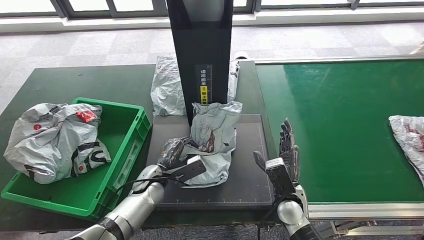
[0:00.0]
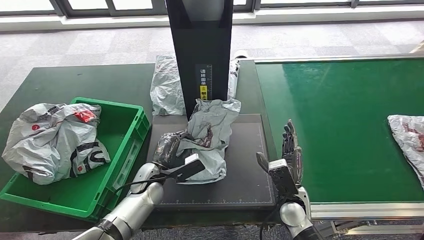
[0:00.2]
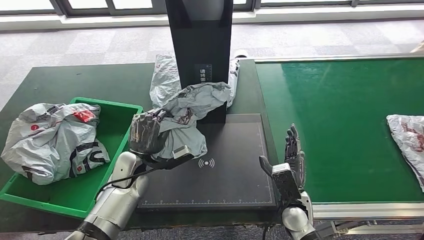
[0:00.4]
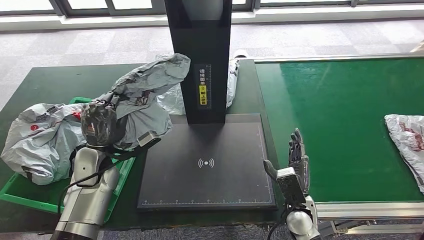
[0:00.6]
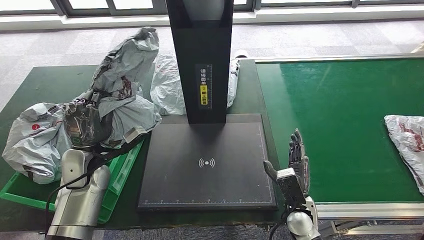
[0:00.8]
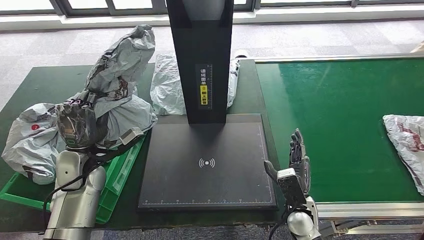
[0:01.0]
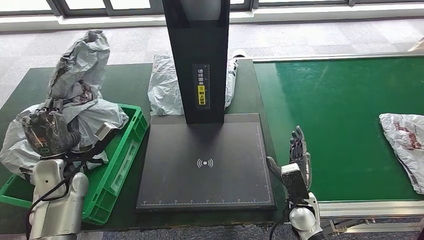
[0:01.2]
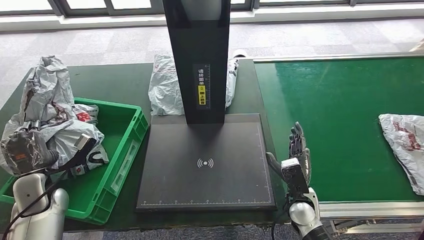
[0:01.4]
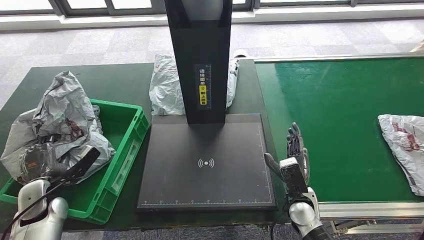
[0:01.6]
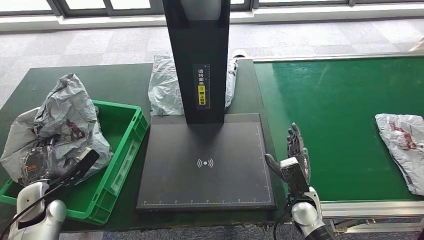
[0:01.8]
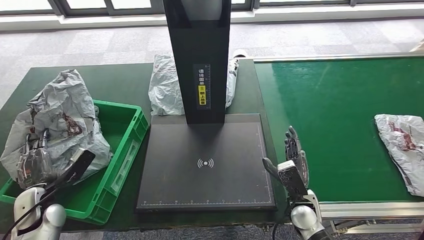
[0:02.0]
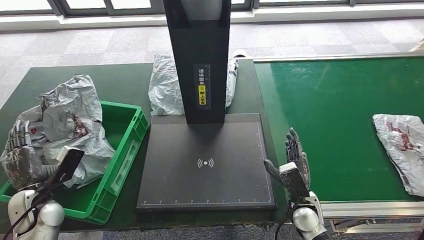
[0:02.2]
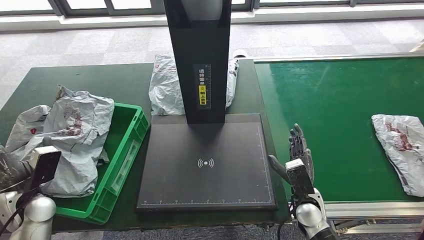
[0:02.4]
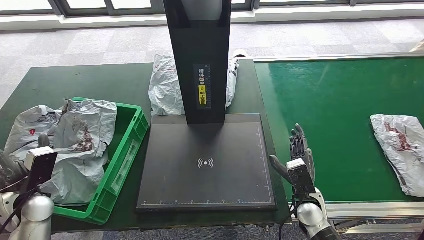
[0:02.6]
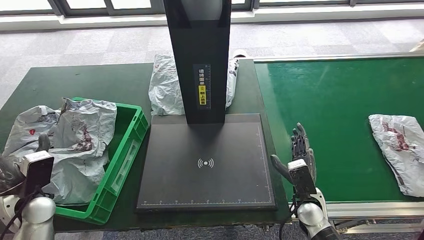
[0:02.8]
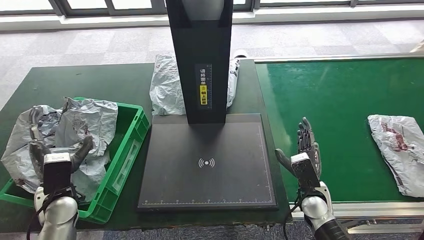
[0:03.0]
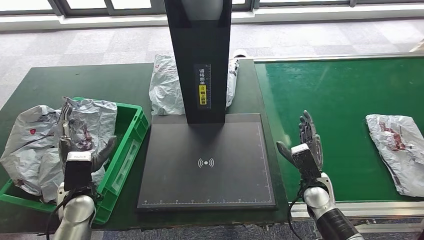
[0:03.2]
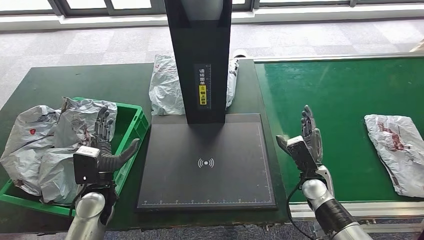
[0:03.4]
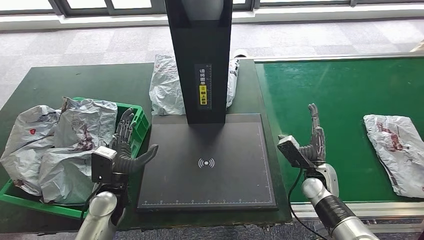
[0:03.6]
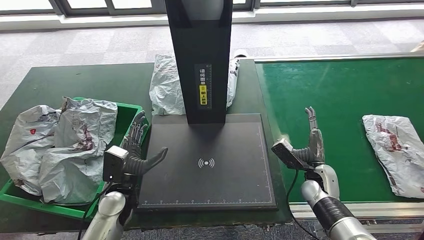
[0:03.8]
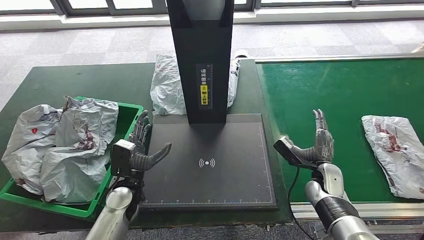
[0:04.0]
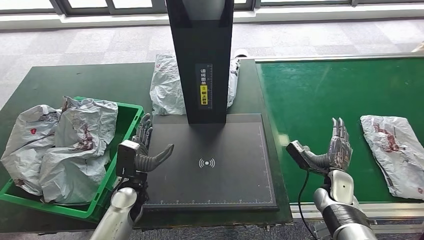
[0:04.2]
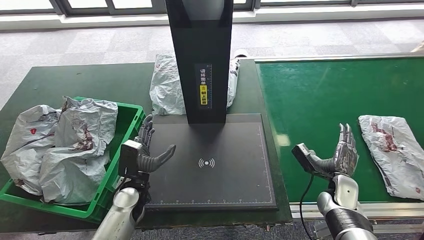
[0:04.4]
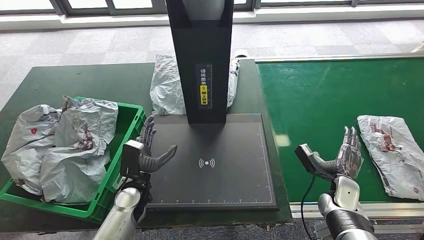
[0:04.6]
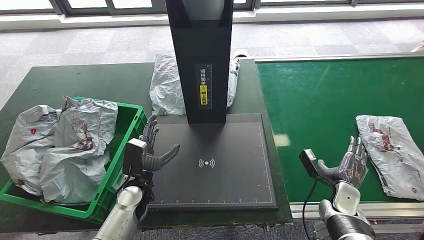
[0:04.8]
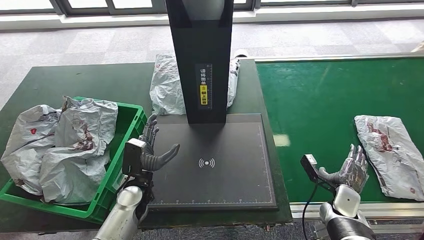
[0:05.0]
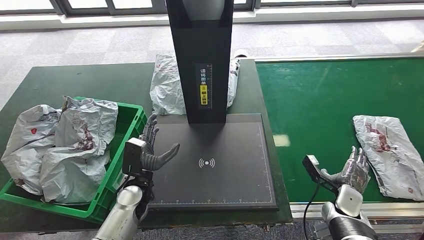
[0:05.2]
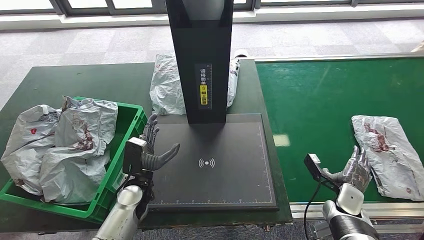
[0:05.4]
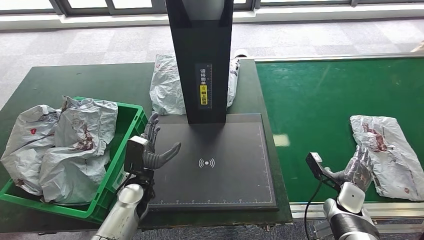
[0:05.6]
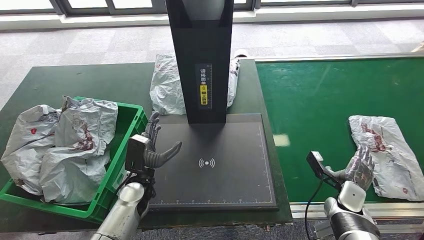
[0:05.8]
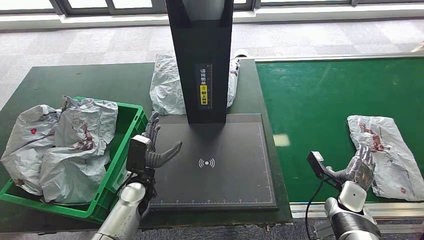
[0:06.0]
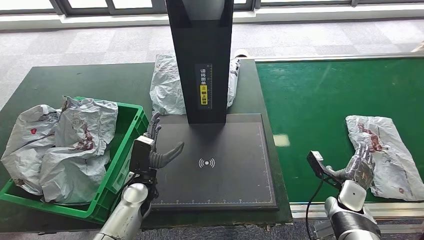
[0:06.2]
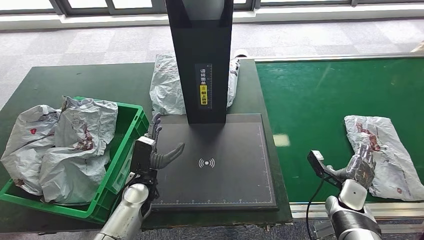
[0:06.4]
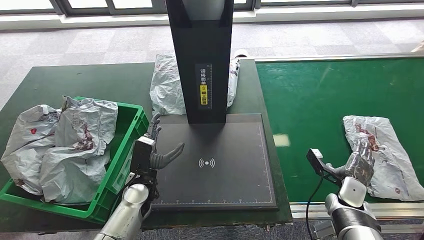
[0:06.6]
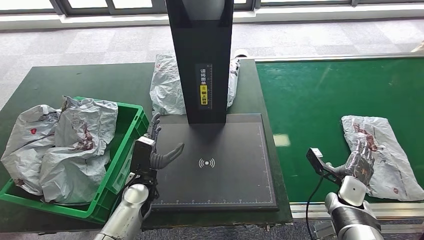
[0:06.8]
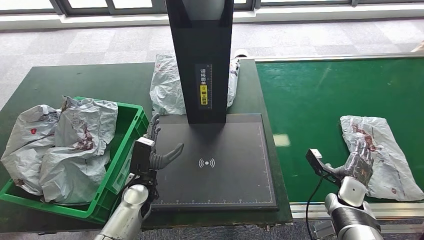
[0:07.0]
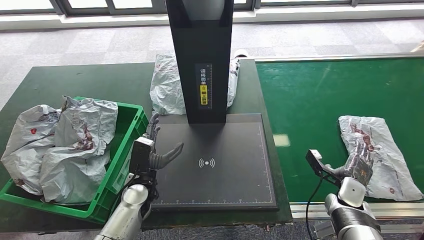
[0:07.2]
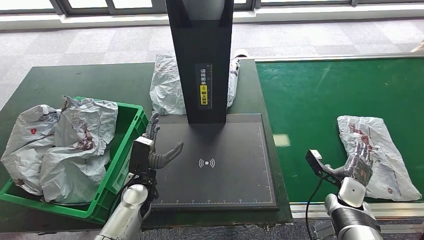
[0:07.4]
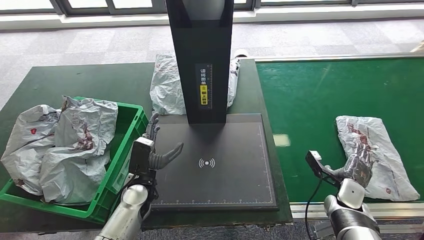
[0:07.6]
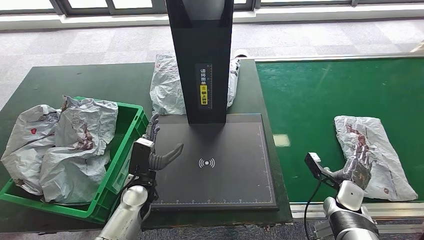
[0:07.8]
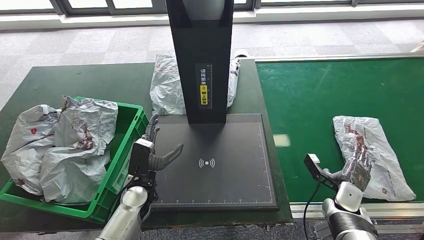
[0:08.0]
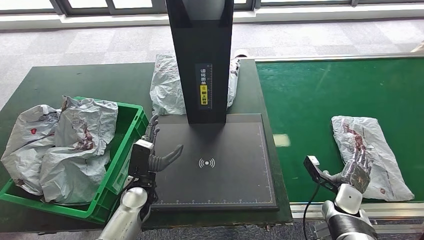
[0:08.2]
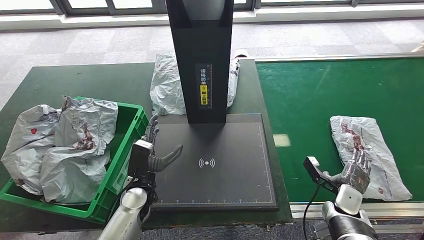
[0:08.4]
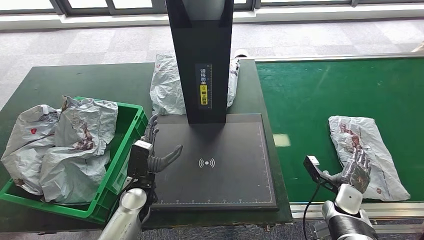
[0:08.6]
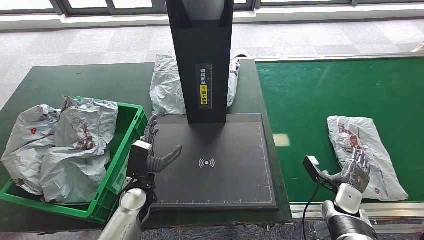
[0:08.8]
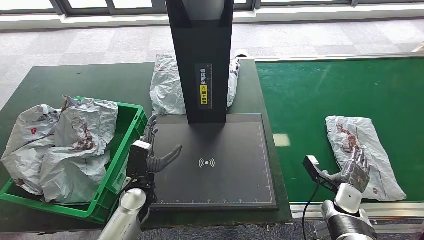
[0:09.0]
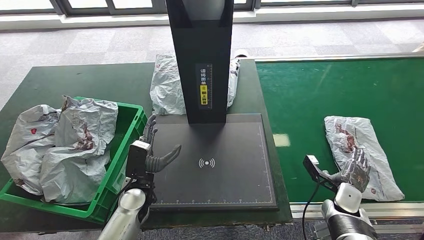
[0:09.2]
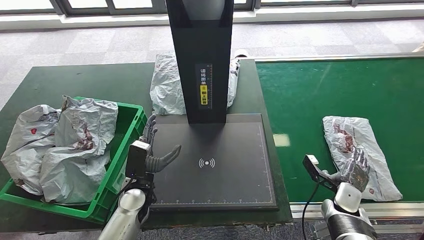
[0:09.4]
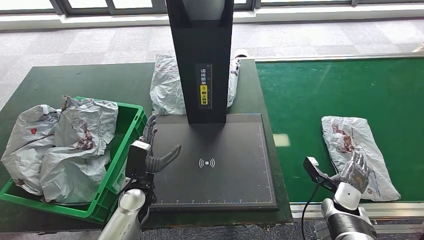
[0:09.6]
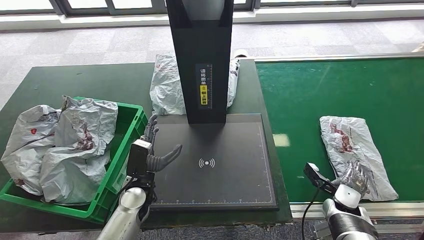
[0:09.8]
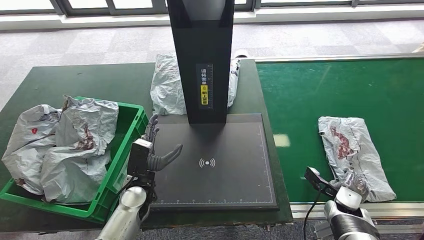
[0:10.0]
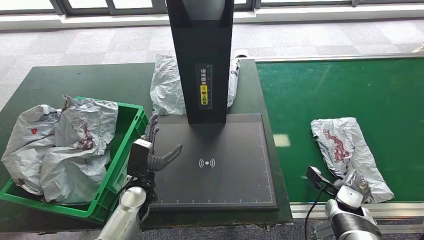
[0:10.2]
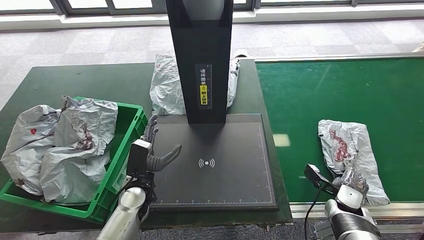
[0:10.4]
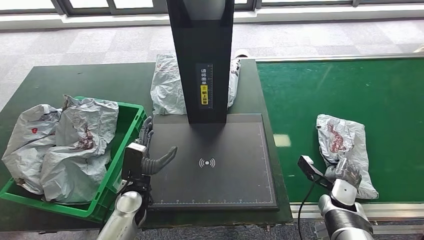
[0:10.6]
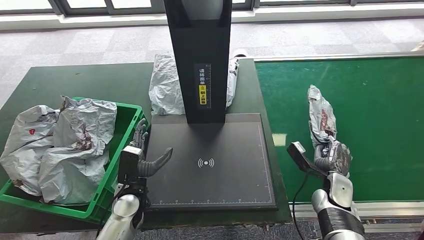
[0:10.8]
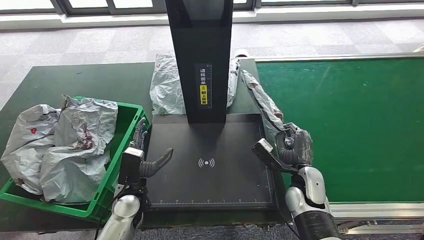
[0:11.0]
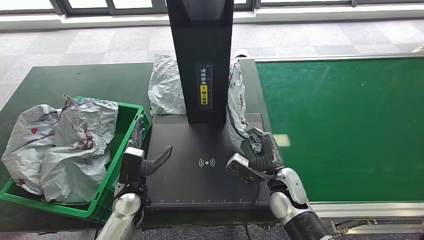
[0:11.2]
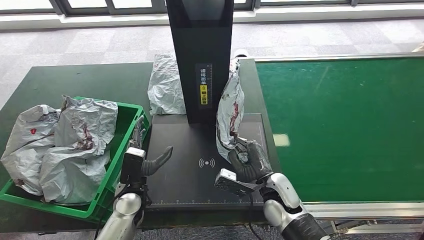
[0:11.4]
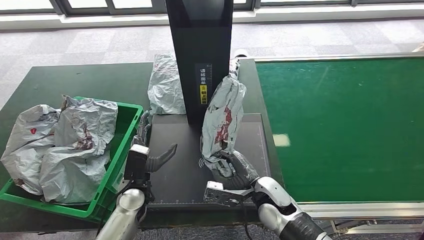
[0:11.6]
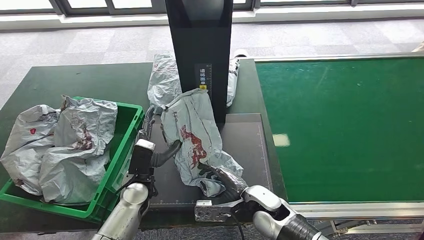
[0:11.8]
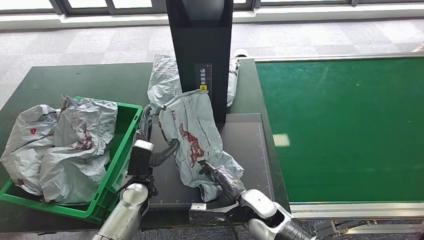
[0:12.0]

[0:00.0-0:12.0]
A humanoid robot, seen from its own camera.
Step, 0:00.8 to 0:03.4: Place the parcel into the delivery box.
Step, 0:03.8 to 0:10.8: Pick up the parcel from the conveyor belt.
0:01.6 to 0:03.0: The left hand goes about 5 cm to the right.
0:03.0 to 0:04.4: The right hand travels to the right by approximately 10 cm. Meanwhile the left hand heads to the right, covering roughly 15 cm.
0:06.0 to 0:07.6: Both hands stay put.
0:07.6 to 0:09.0: There are only small adjustments of the hands.
0:10.4 to 0:12.0: The right hand travels to the left by some 25 cm.

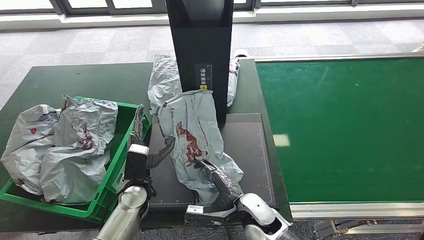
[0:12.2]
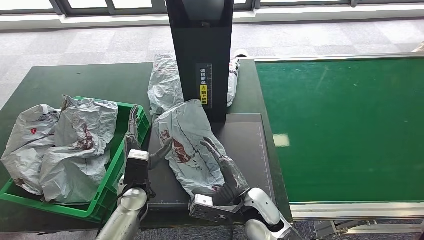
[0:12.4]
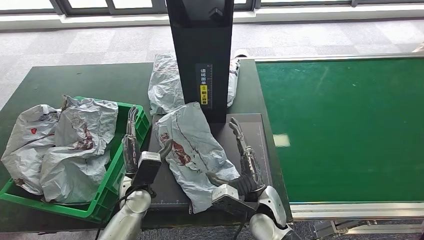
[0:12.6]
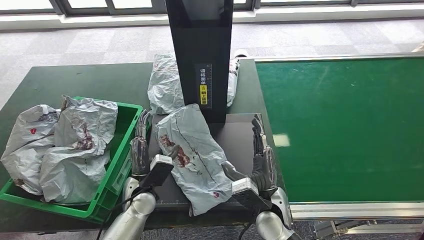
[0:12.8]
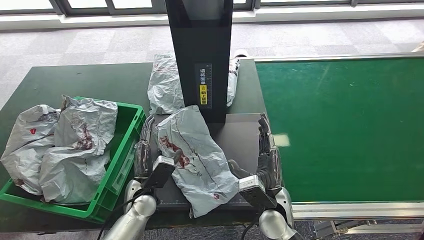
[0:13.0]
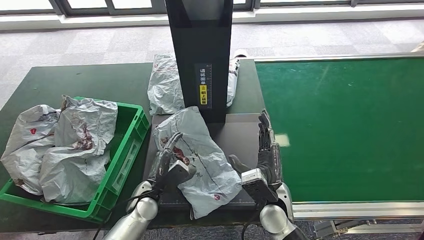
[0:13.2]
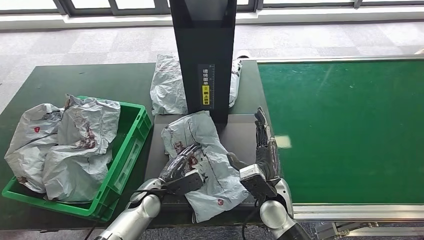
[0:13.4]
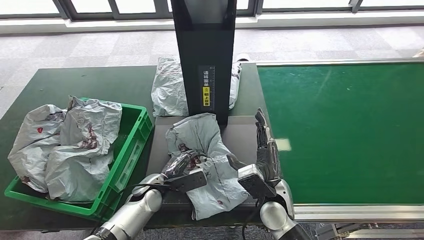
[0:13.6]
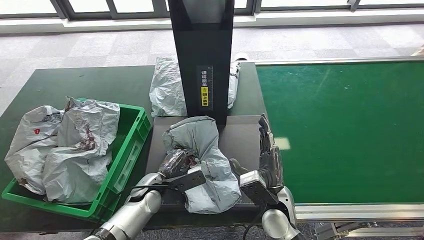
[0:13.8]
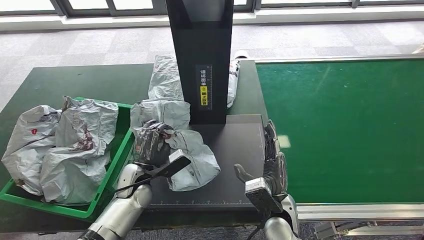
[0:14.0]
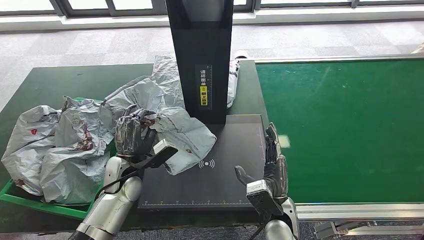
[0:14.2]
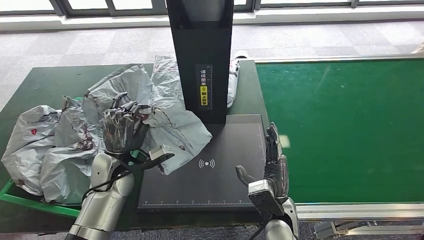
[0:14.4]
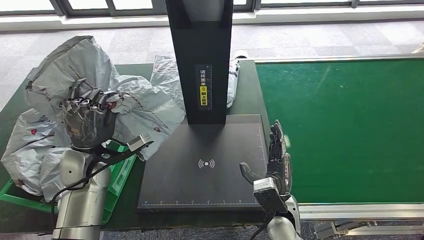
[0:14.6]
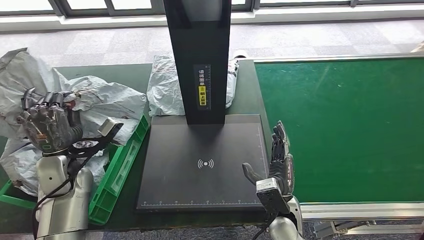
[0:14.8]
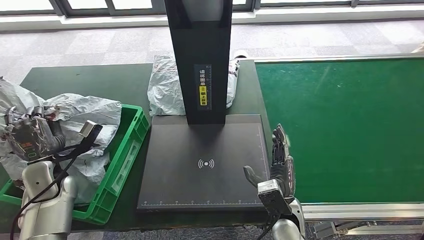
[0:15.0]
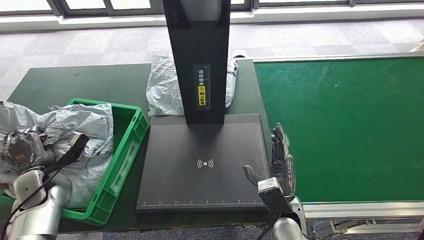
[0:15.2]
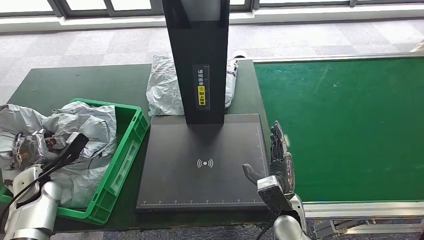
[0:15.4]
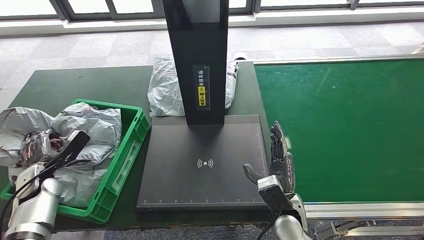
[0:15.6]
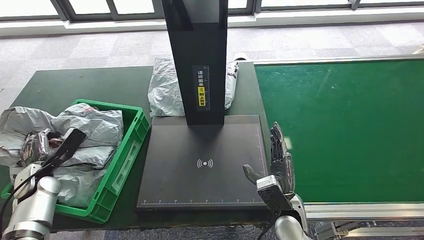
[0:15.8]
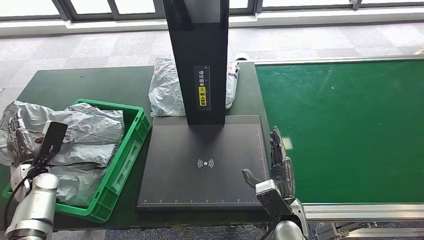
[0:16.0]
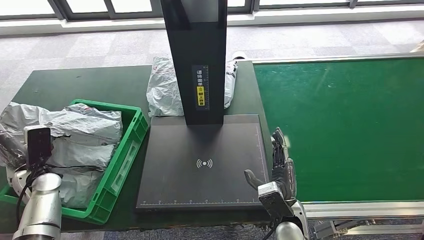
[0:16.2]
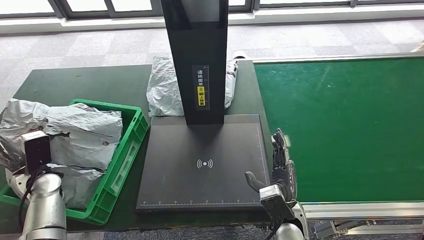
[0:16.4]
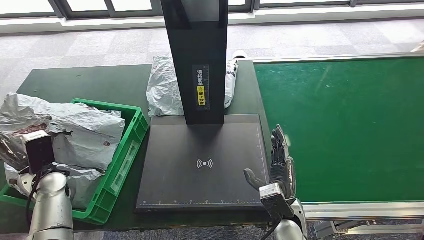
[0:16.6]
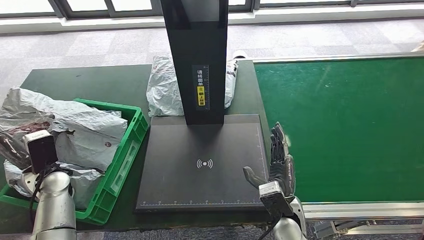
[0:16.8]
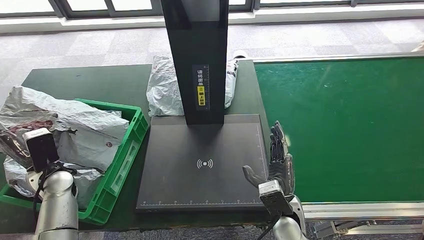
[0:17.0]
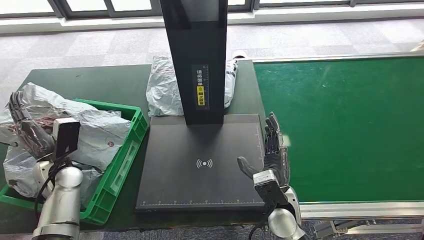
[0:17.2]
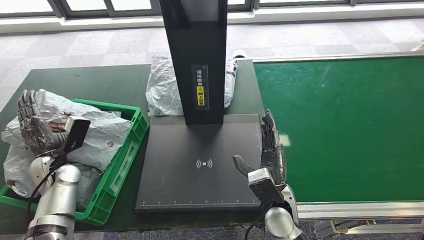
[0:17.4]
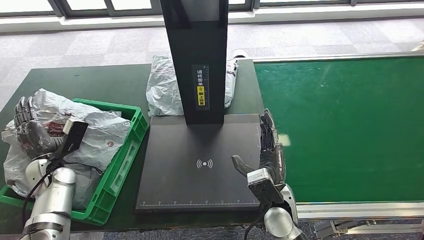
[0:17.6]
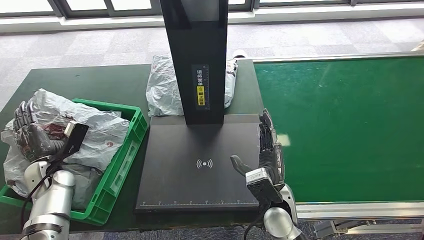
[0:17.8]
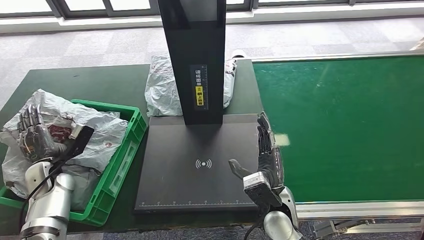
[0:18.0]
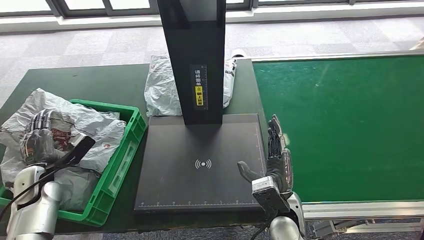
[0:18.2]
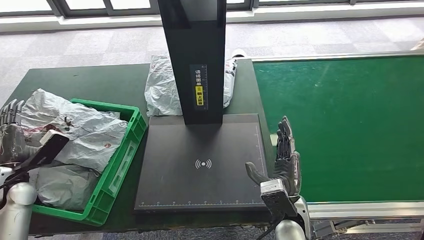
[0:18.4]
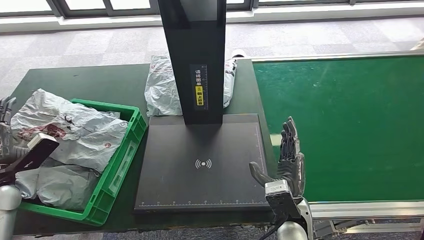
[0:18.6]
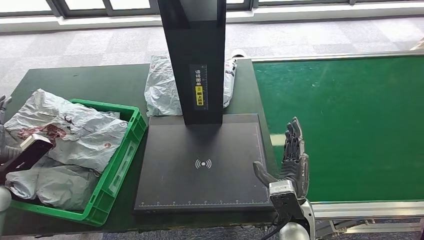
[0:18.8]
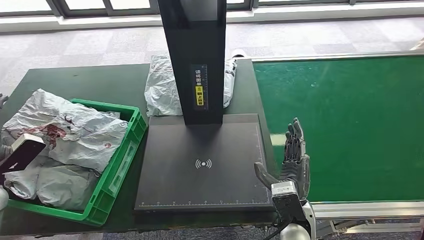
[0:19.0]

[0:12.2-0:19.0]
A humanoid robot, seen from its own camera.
Step, 0:13.2 to 0:14.4: Pick up the parcel from the inbound machine.
Step, 0:14.8 to 0:18.8: Place the parcel into the delivery box.
0:17.6 to 0:19.0: The left hand is displaced to the left, backward and upward by approximately 15 cm.
